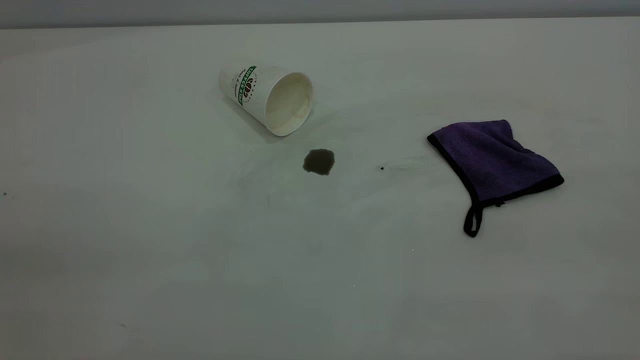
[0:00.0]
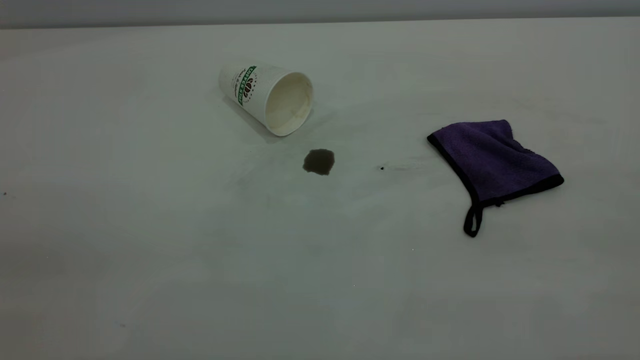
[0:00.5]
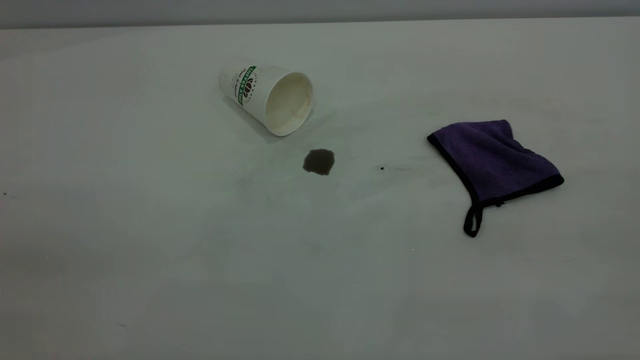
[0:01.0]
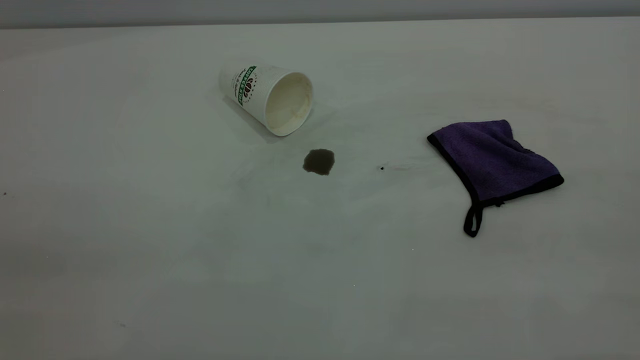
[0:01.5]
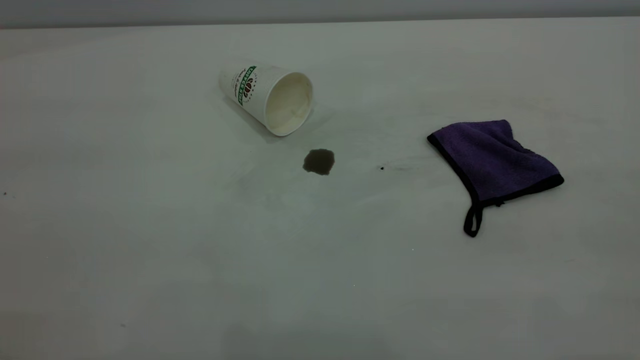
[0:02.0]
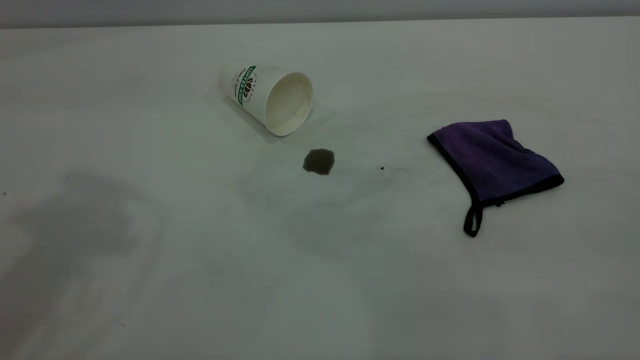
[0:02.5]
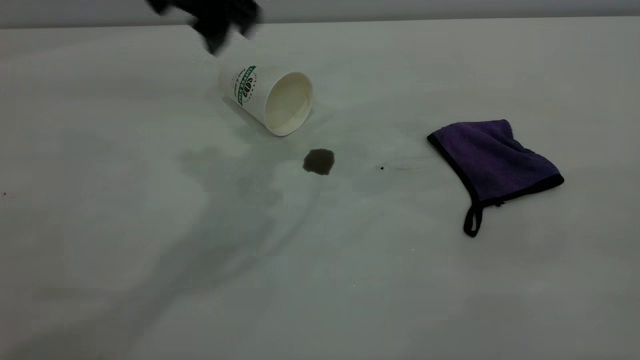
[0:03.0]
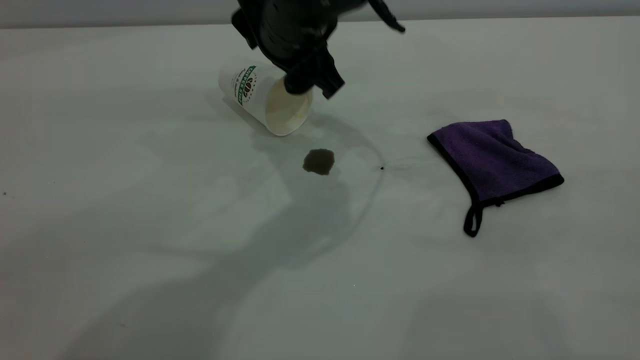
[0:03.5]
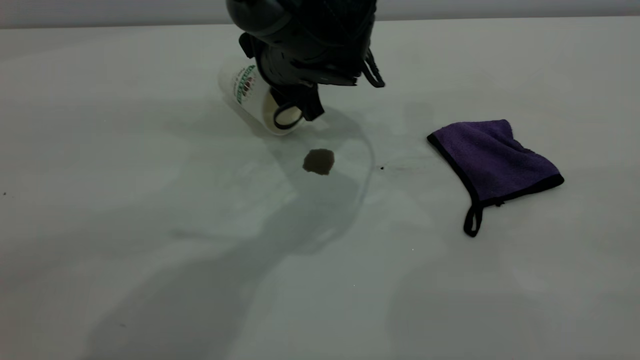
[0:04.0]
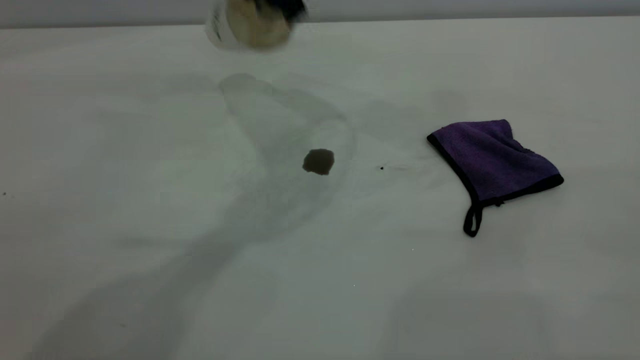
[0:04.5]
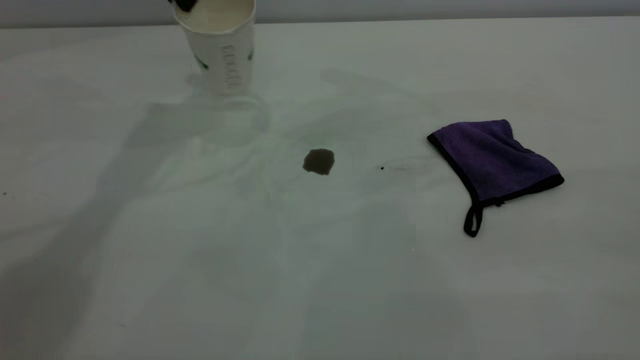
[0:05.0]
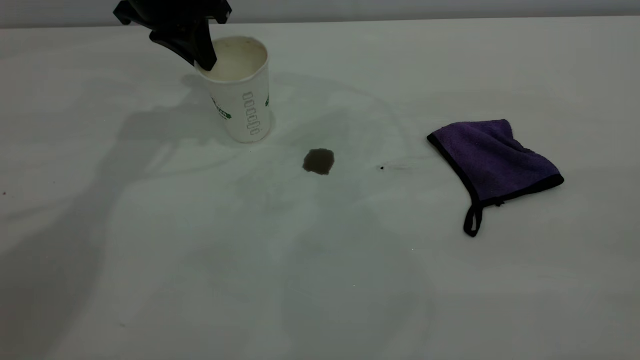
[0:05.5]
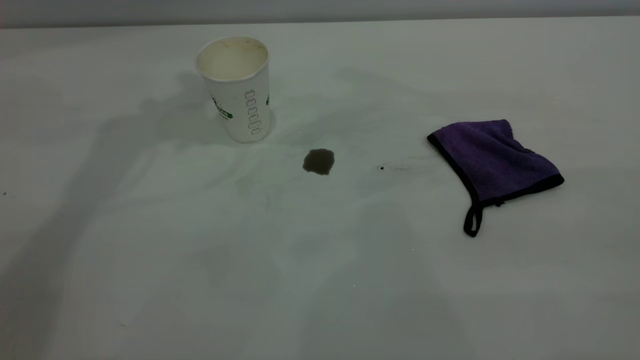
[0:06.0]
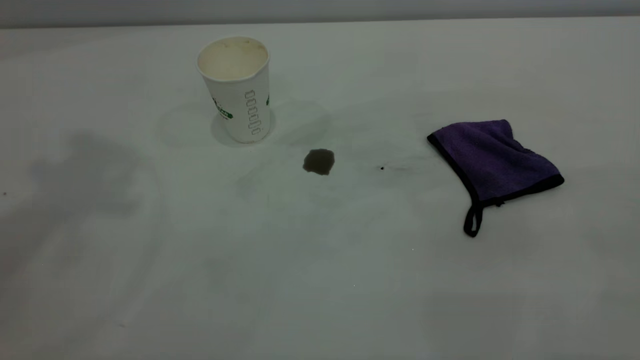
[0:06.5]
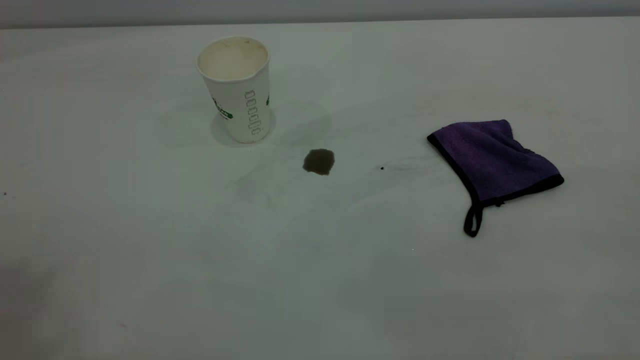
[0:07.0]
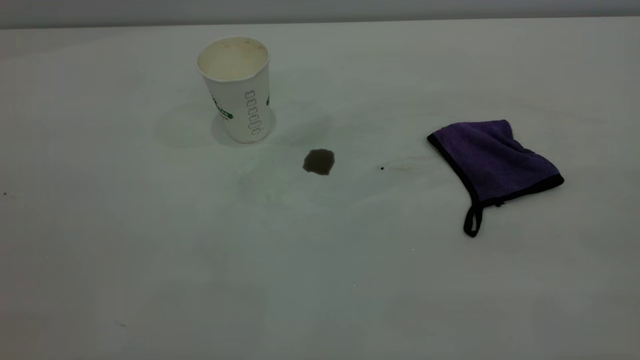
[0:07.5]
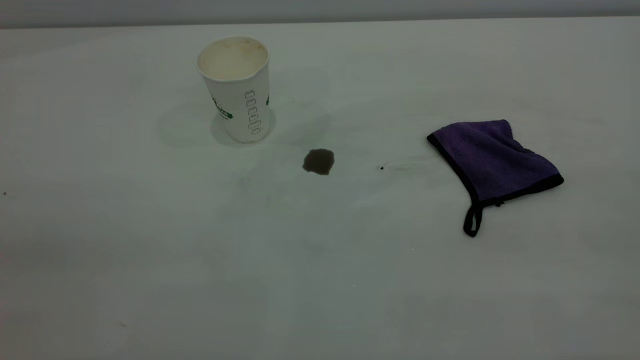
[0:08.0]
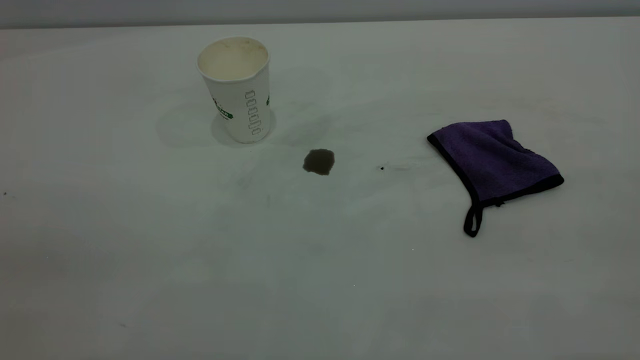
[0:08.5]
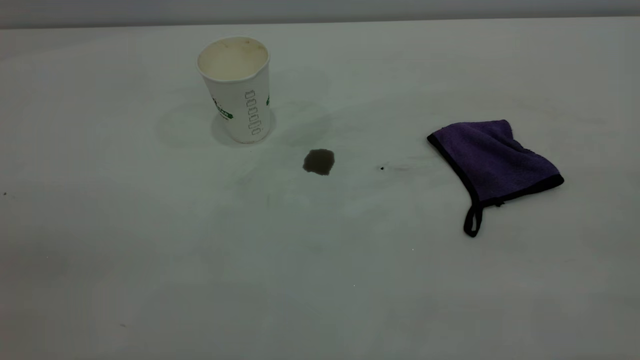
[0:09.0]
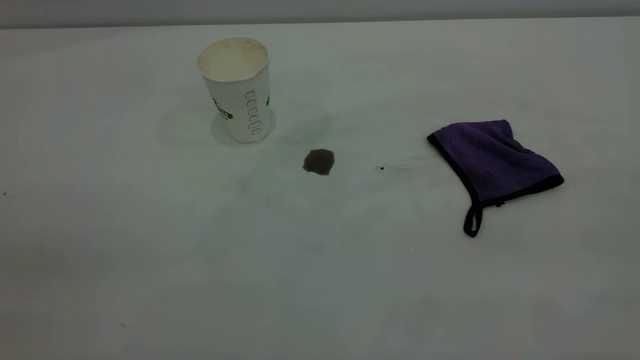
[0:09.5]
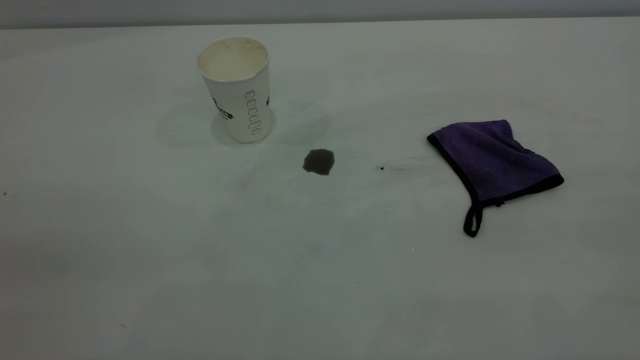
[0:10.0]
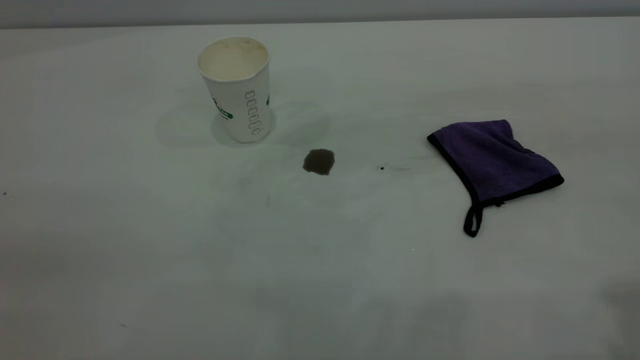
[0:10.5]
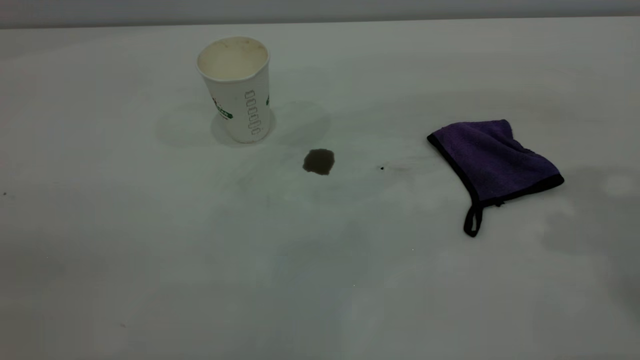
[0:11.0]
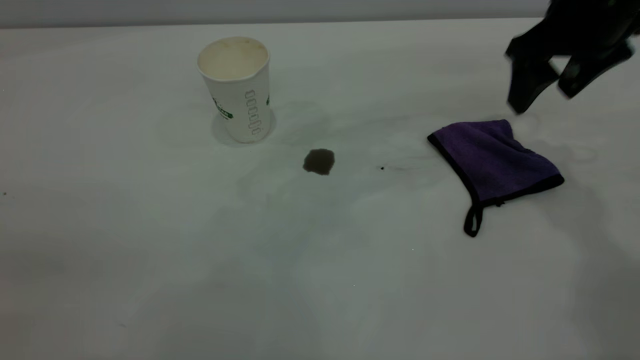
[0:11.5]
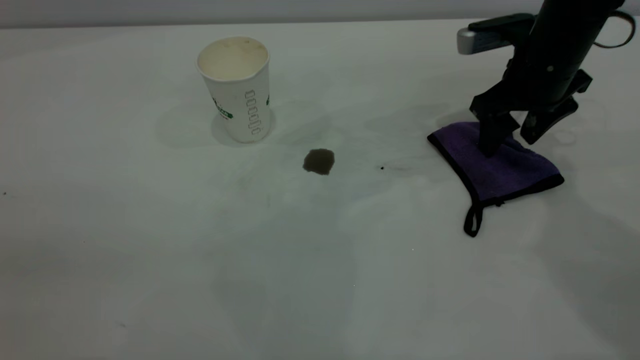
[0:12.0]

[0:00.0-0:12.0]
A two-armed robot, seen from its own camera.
Task of the whole recording: the left gripper pick up the fallen cup and place it upright, the right gripper grasp the purple rag and wipe the coffee stain on the table, the right gripper put the purple rag back in its original position.
Step, 0:00.0 to 0:05.5: Stand the paper cup upright.
0:02.0 to 0:04.0: The left gripper moves downward, forward and to the right, approximately 50 cm.
0:04.0 to 0:06.0: The left gripper moves up and down over about 25 cm, changing direction 2 times, and closes, then reopens.
0:10.0 to 0:12.0: The right gripper travels forward and downward by approximately 50 cm, and opens up.

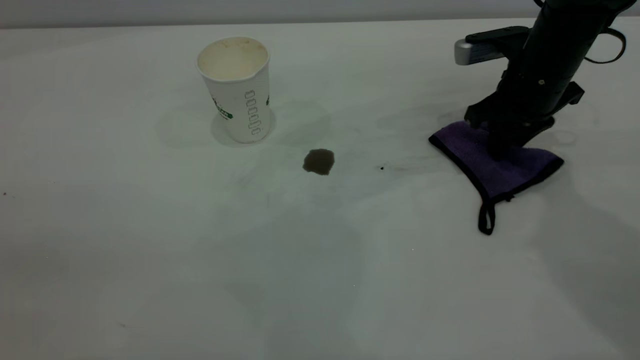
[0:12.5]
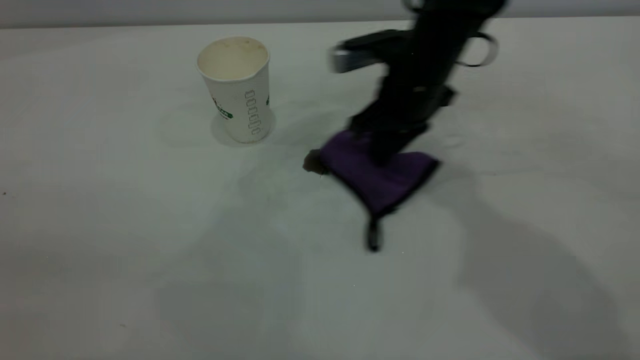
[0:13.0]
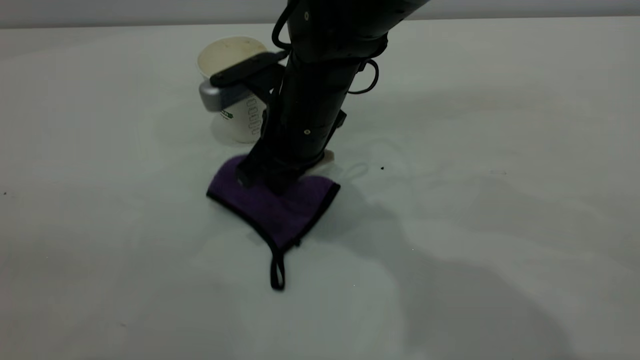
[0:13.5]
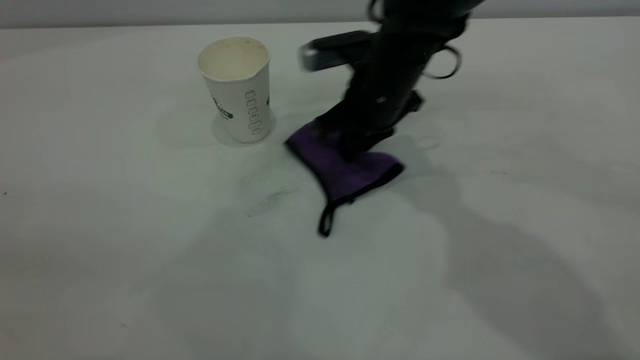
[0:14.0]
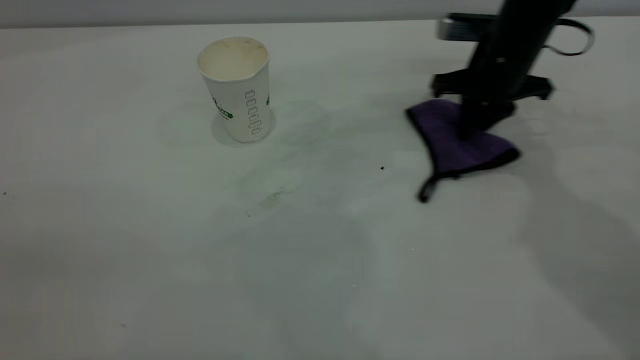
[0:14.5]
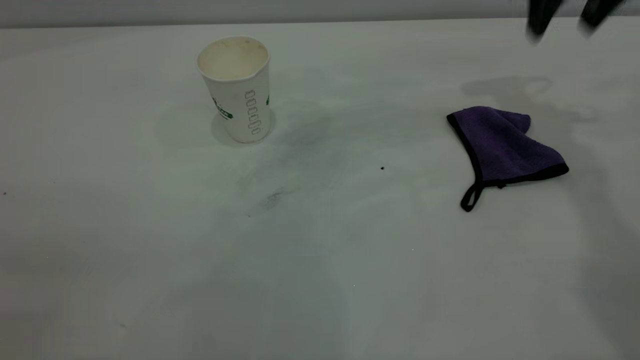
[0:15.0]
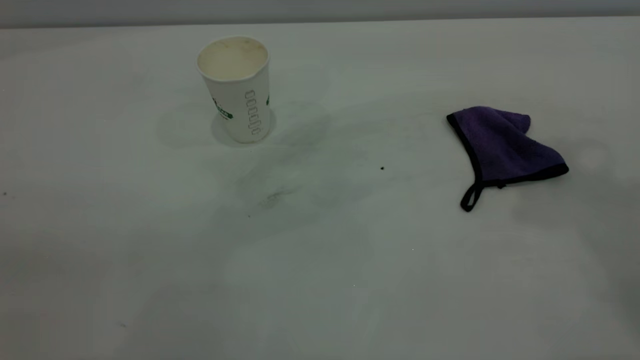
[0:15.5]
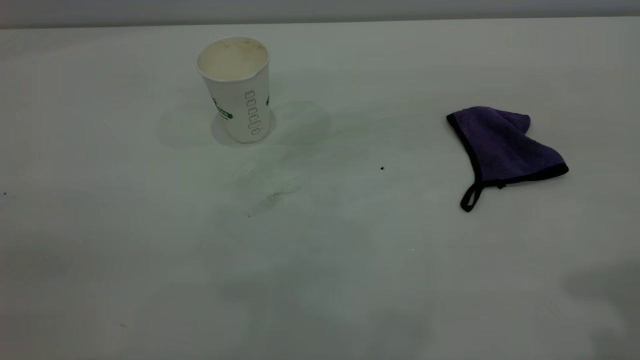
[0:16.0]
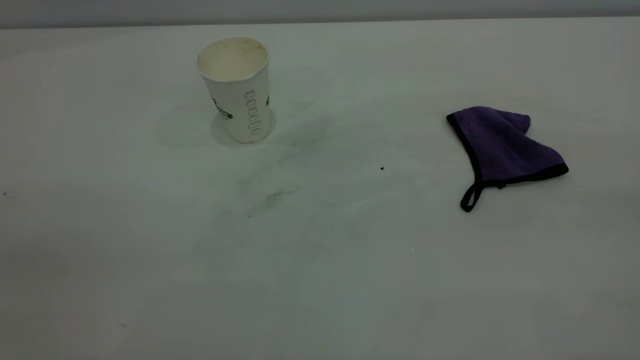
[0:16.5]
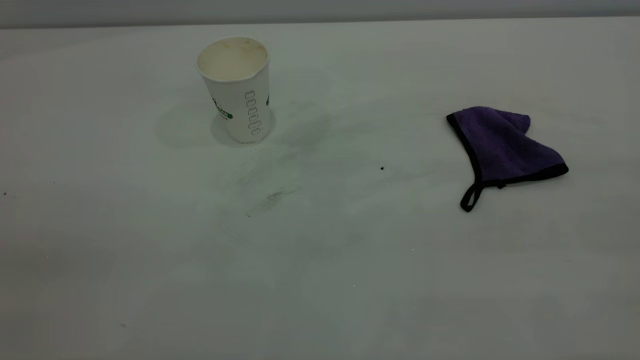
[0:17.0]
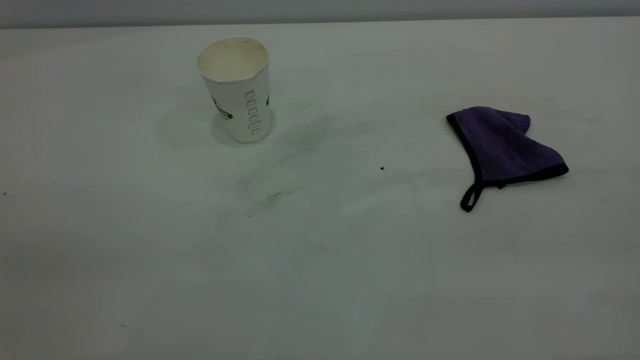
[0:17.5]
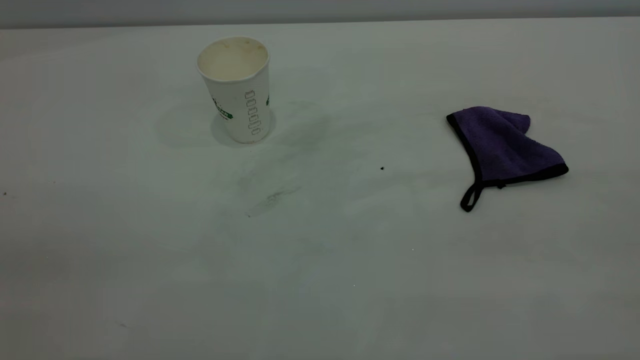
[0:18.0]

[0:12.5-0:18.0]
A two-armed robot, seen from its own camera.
Task of the whole recording: the left gripper pick up the fallen cup and place it upright, the right gripper grasp the purple rag and wipe the coffee stain on the table, the right gripper put the purple rag back in its original position.
Step, 0:12.5 to 0:14.5: Wipe the stains off the table with a rag.
0:12.5 to 0:14.5: The right gripper moves roughly 25 cm to the left and comes back.
0:14.5 to 0:16.0: The right gripper travels upward and backward by roughly 40 cm, and opens its fingers.
